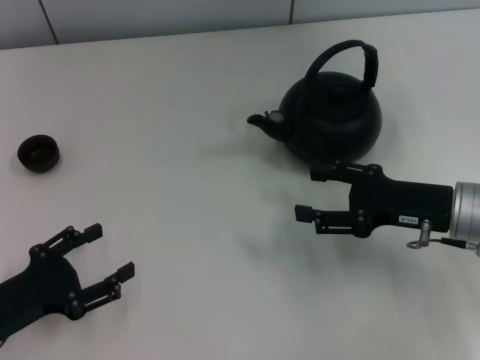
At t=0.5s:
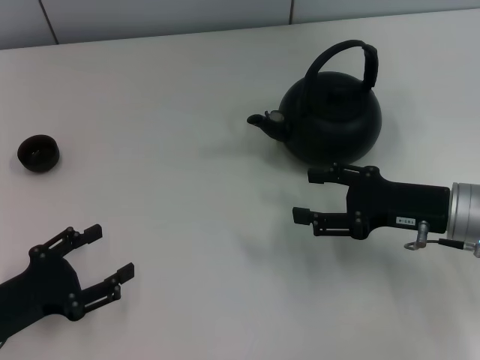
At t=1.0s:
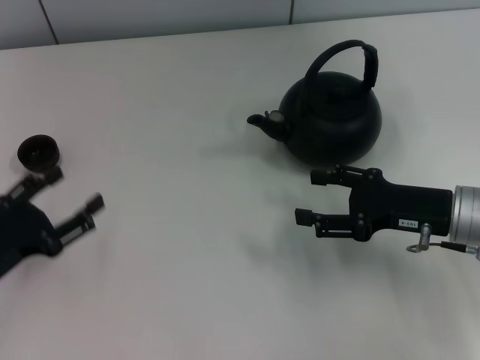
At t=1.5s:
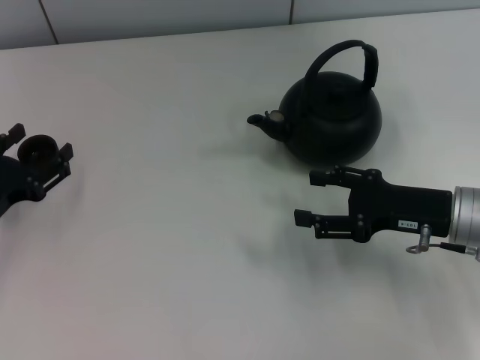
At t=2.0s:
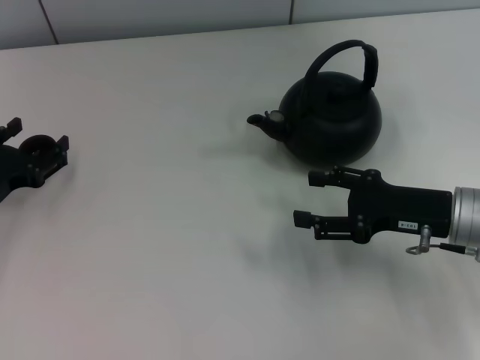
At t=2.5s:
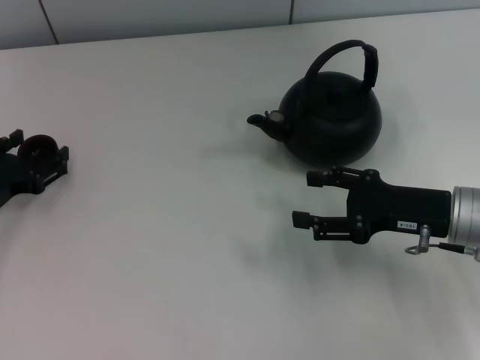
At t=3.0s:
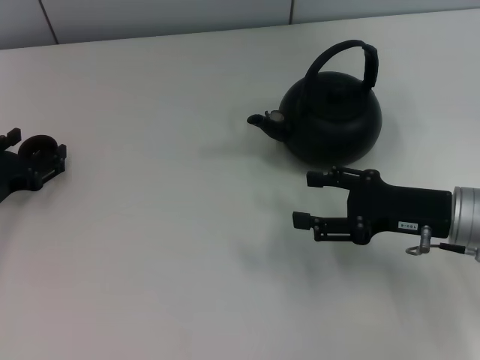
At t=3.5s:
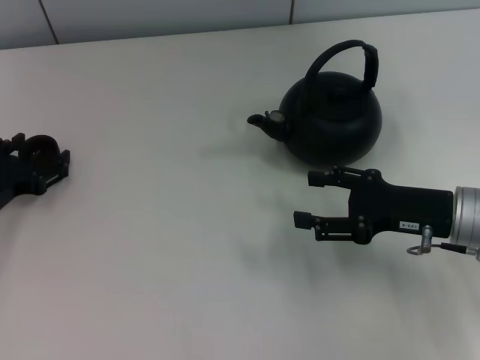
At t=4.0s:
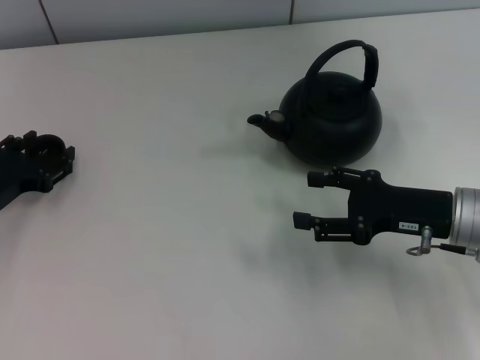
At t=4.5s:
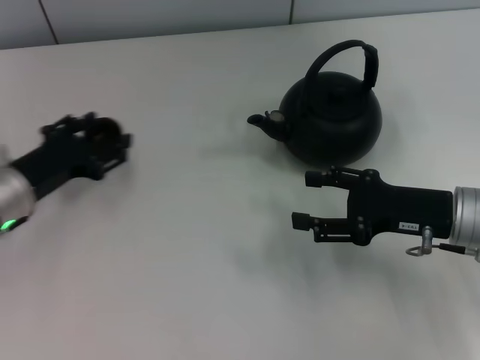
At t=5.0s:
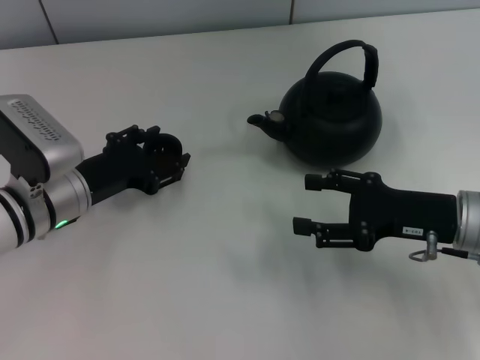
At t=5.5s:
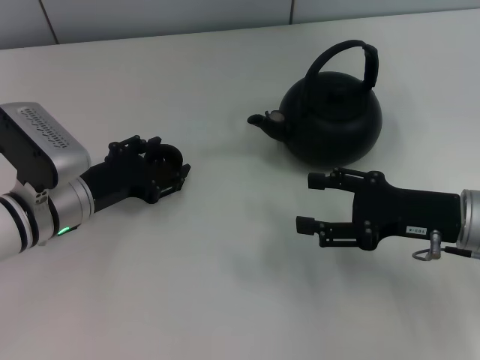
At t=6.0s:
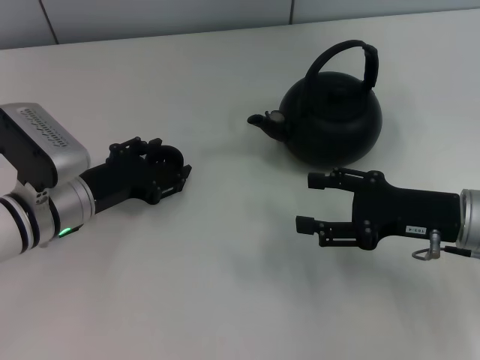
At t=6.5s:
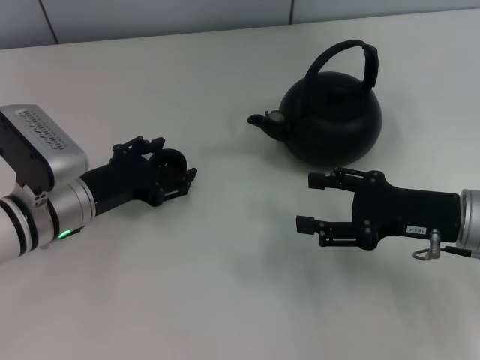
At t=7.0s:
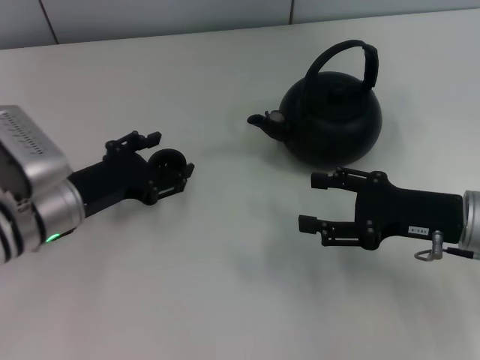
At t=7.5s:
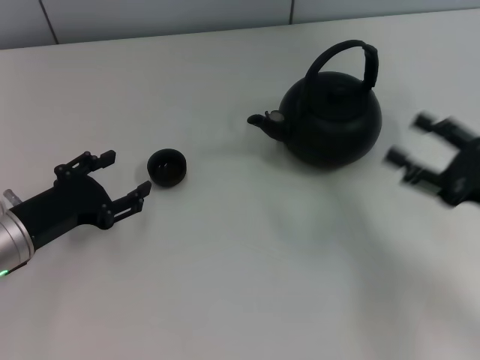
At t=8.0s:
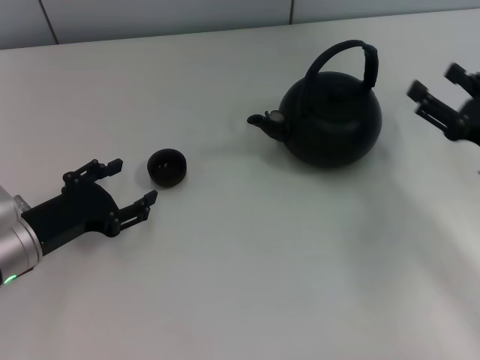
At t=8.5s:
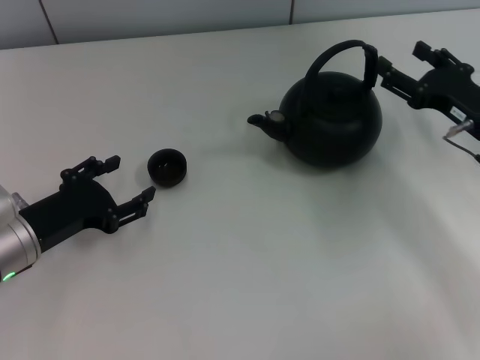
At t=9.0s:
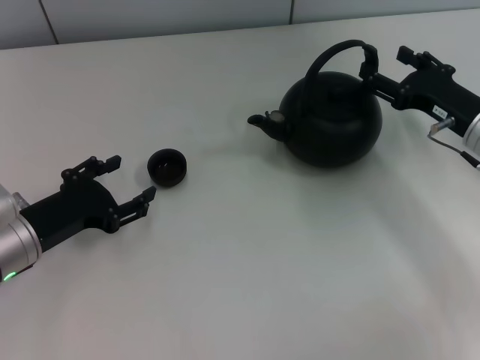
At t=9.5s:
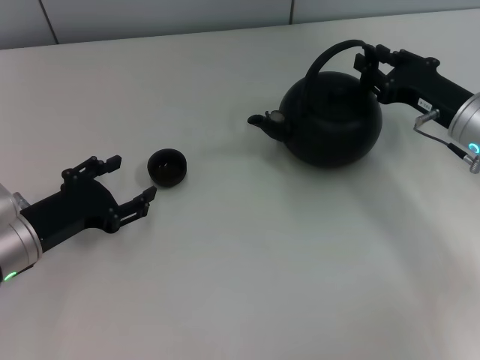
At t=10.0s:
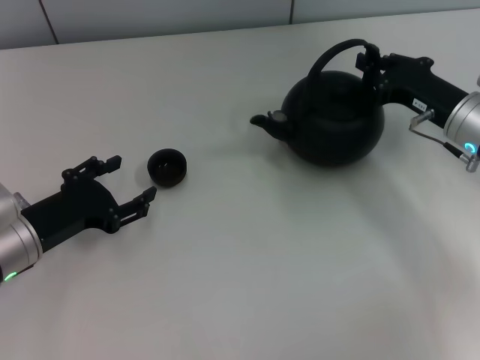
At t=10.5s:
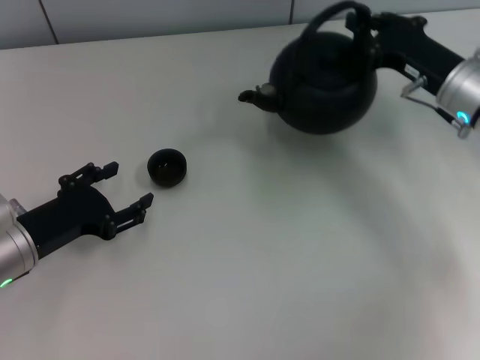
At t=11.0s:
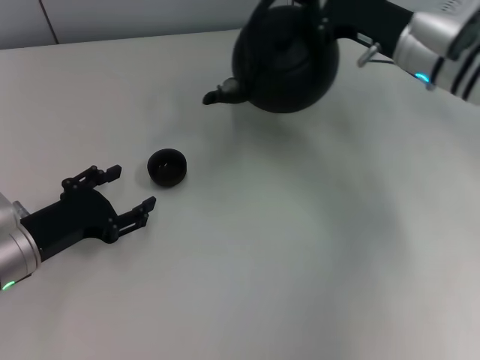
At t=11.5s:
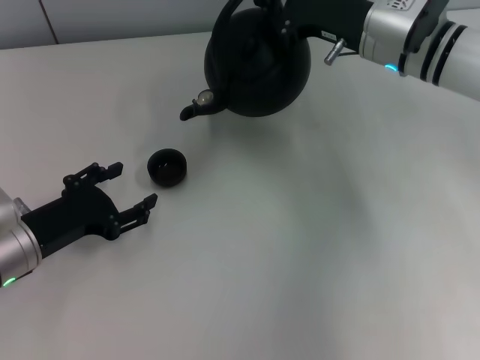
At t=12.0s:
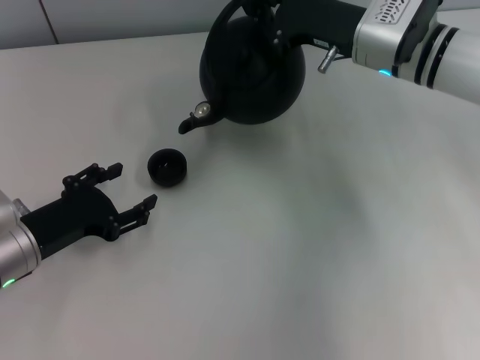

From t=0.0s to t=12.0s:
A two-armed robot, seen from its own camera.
Task of the whole recording: Grasp the handle of the teapot with one hand and pour tea into the teacup.
Step, from t=0.0s to t=4.0s: Pick up the teacup with the left gripper.
Step, from t=4.5s to t=7.0s: Place the teacup in the center of view with the left gripper.
Step, from t=7.5s to t=10.5s: Pick up the teapot with the right gripper.
From t=0.0s to t=2.0s: The left gripper goes about 10 cm forward.
From t=2.0s to t=4.0s: The left gripper closes its fingers.
From t=4.0s to t=6.0s: The left gripper heads to the right, covering roughly 10 cm.
From t=6.0s to t=8.0s: The left gripper changes place by approximately 5 cm, while the right gripper goes about 5 cm to the right.
From t=8.0s to t=10.0s: The right gripper is displaced forward by about 10 cm, and closes its fingers.
From t=10.0s to t=12.0s: The right gripper moves to the left, forward and upward, some 15 cm.

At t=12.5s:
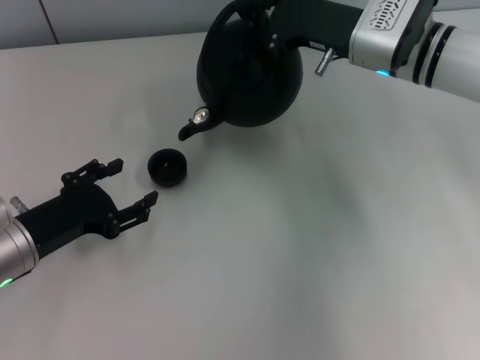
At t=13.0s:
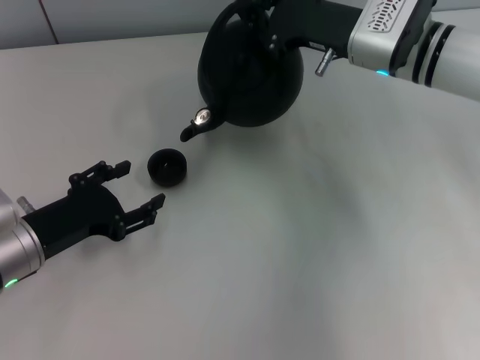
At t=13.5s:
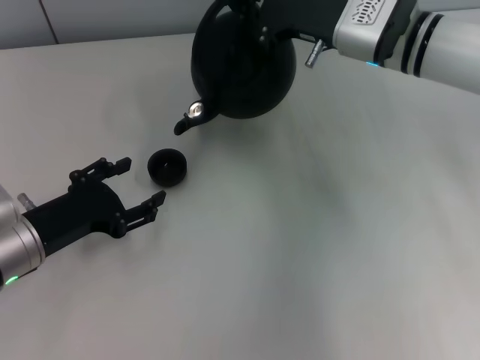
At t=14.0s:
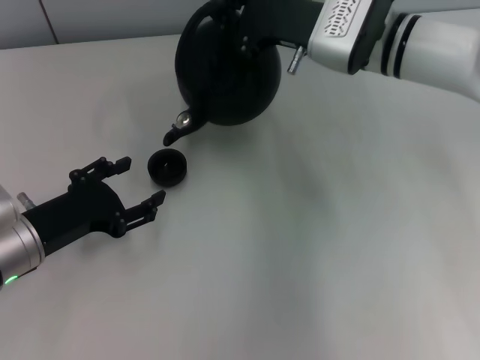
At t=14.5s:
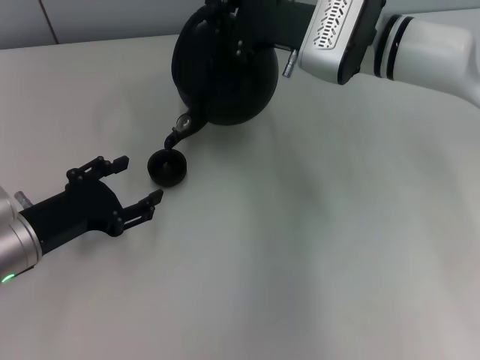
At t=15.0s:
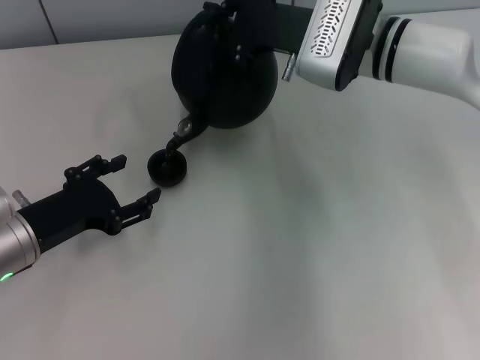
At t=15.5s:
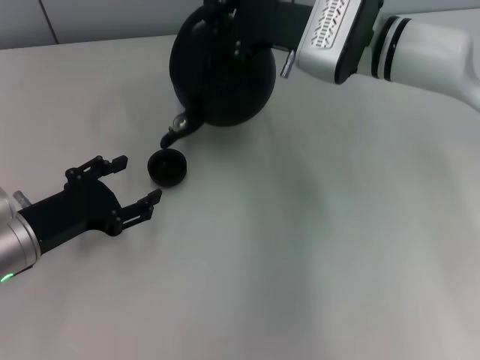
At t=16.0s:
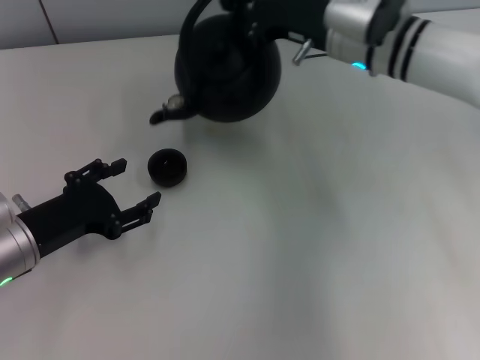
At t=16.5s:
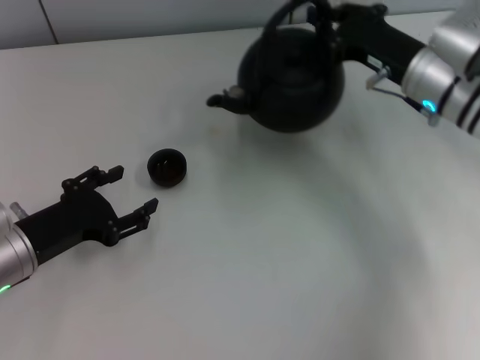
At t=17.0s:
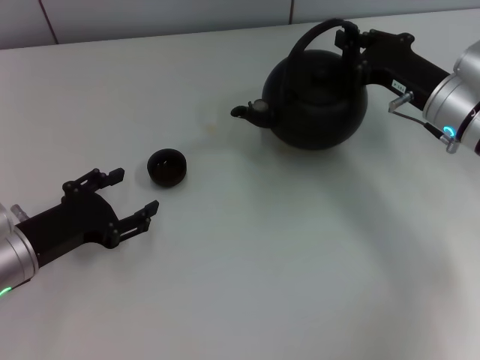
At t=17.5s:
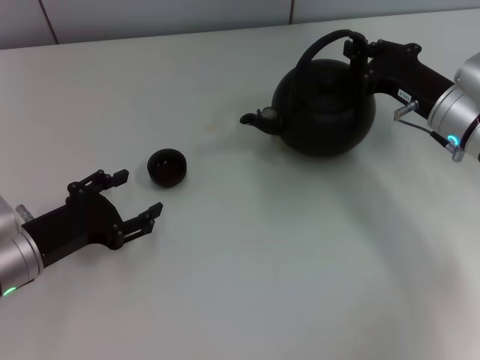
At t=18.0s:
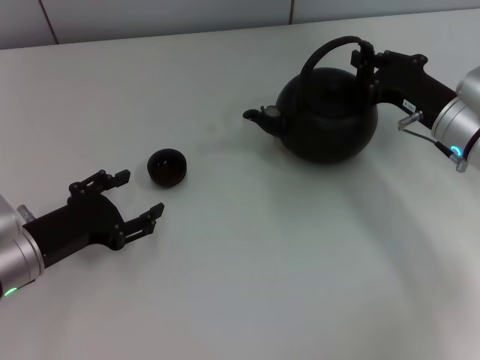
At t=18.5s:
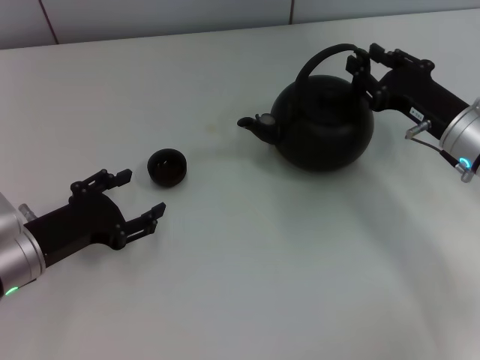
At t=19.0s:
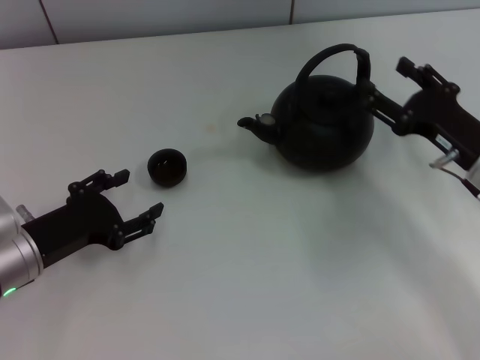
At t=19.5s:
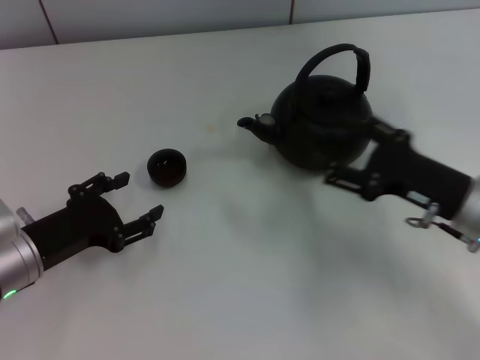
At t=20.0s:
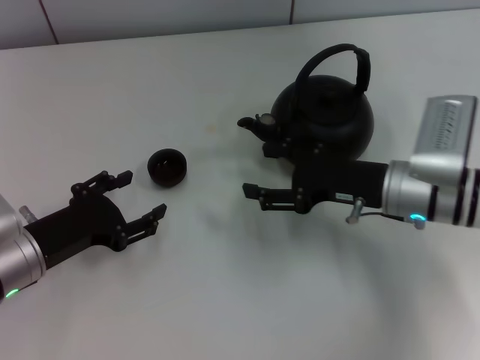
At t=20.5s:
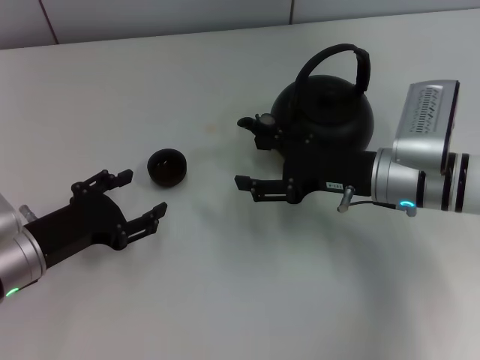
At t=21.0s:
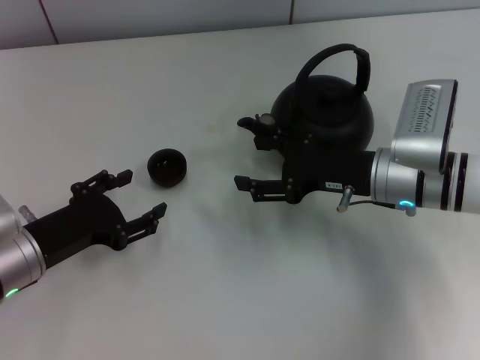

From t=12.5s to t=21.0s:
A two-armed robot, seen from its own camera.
Task of the whole recording: Grasp the handle of the teapot with one hand and pour tea into the teacup.
Step, from t=16.0s to t=18.5s: Put down the teapot with the right gripper.
From t=12.5s to t=14.5s: The grippers make only small movements.
From t=14.5s to t=16.5s: The right gripper heads to the right, covering roughly 10 cm.
From t=16.5s to t=19.0s: The right gripper is displaced backward by roughly 10 cm, and opens.
From t=19.0s to t=21.0s: The right gripper goes approximately 10 cm to the left.

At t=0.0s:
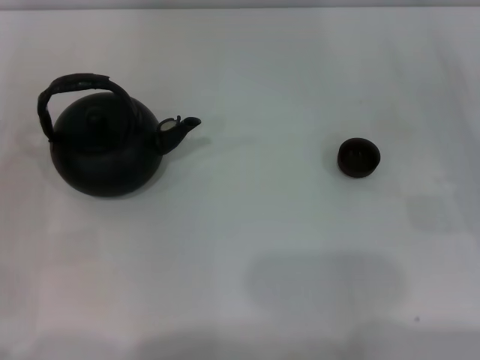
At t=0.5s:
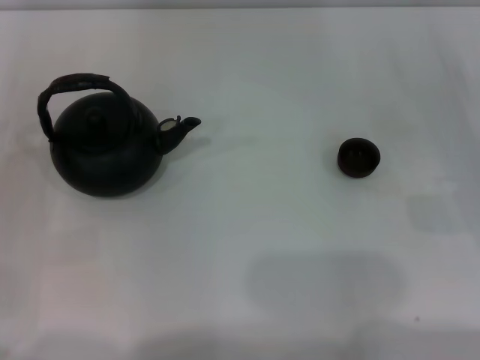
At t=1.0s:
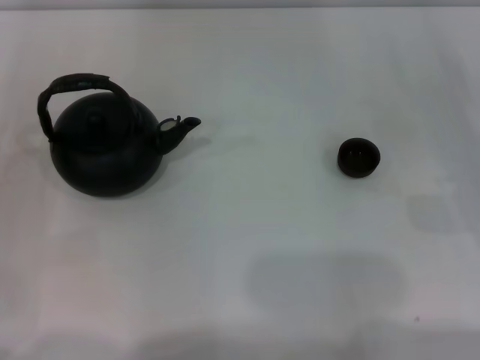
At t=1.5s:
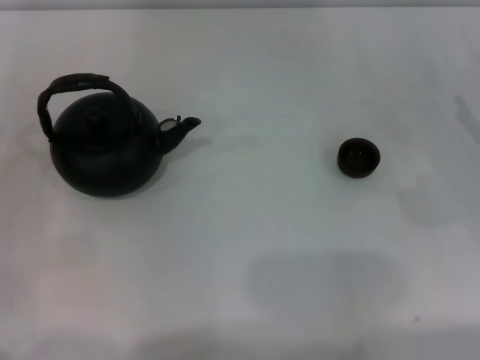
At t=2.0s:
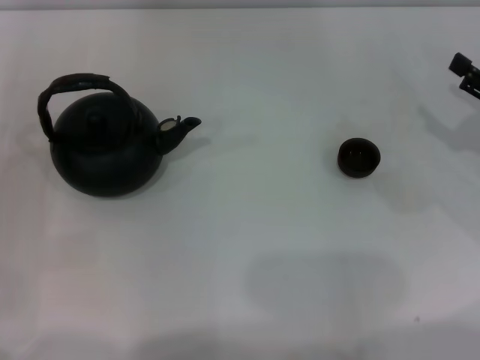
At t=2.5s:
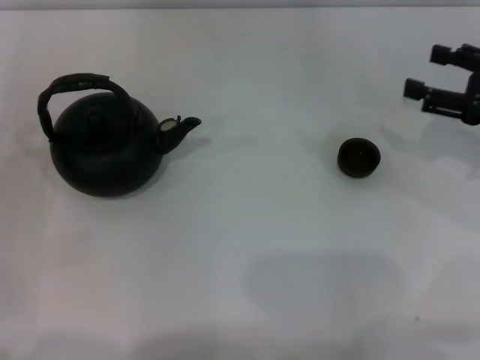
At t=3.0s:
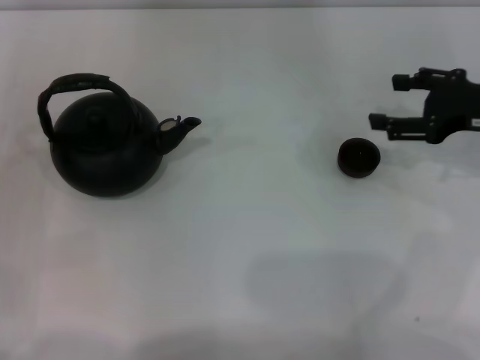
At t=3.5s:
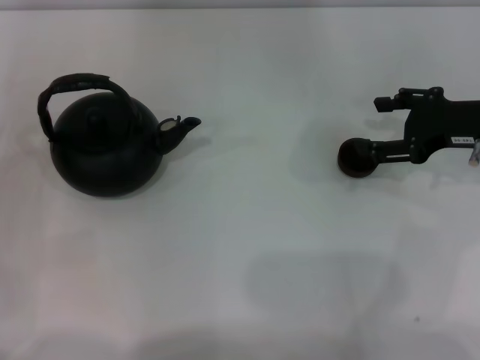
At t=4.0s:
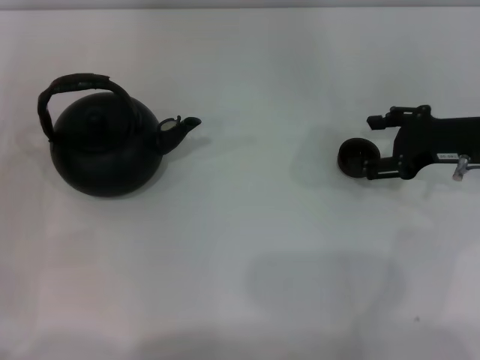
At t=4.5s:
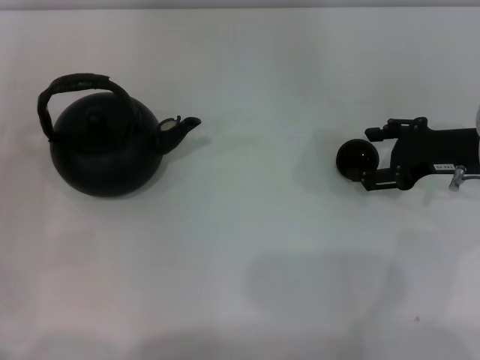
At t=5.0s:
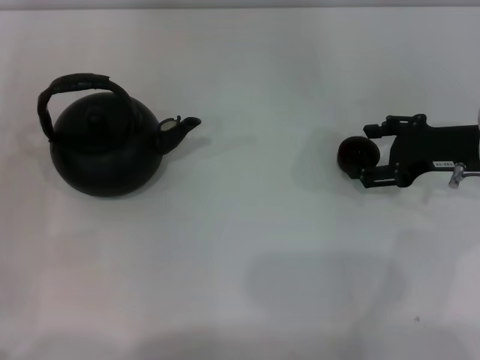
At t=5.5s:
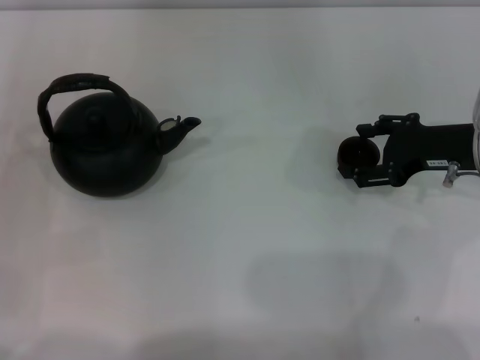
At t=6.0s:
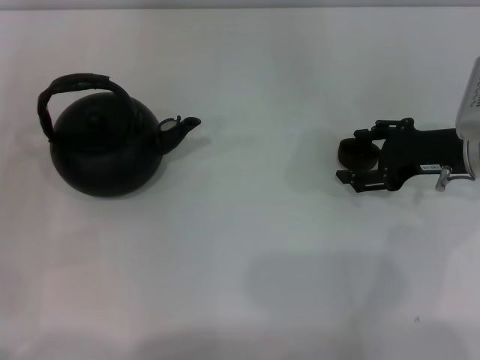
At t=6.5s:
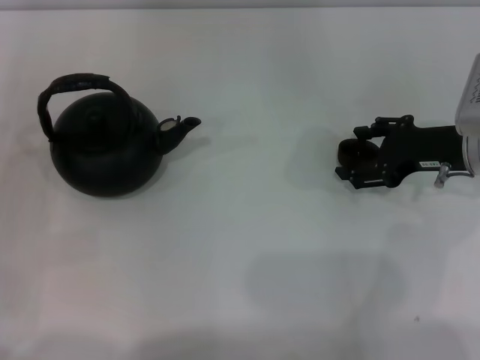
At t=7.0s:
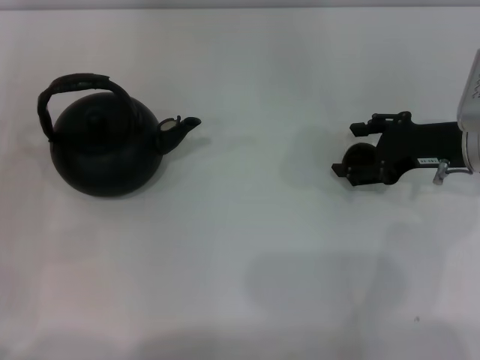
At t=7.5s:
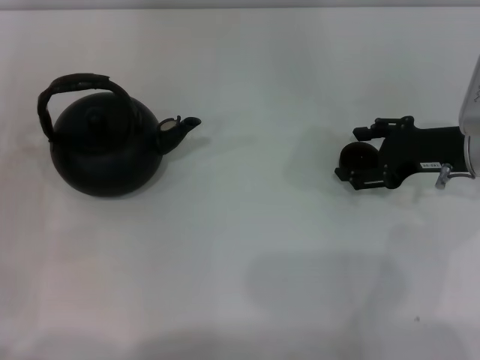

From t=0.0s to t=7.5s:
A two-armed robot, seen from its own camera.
Task of the whole recording: Grasp the handle of the teapot with one hand and pour tea into the teacup.
From t=2.0s to t=4.0s: The right gripper is displaced to the left by about 10 cm.
From t=4.0s to t=5.5s: Both grippers stay about where they are.
From t=5.5s to t=7.5s: The two grippers keep their place.
